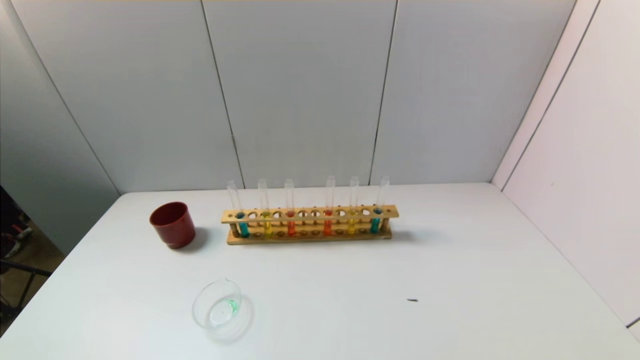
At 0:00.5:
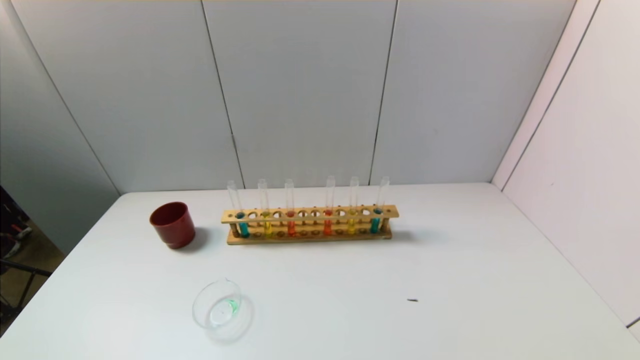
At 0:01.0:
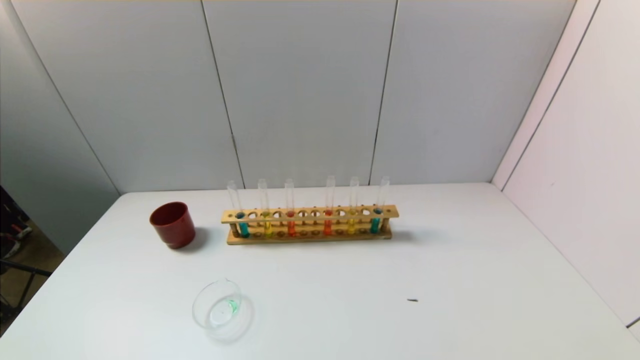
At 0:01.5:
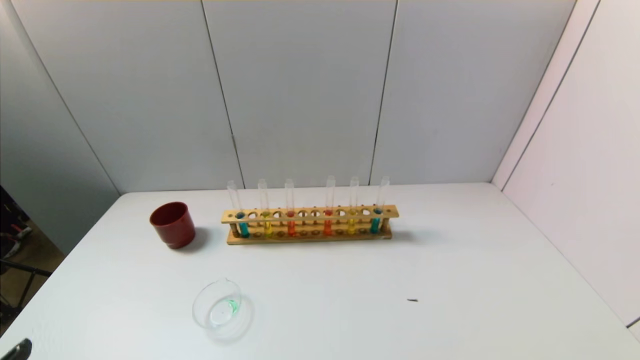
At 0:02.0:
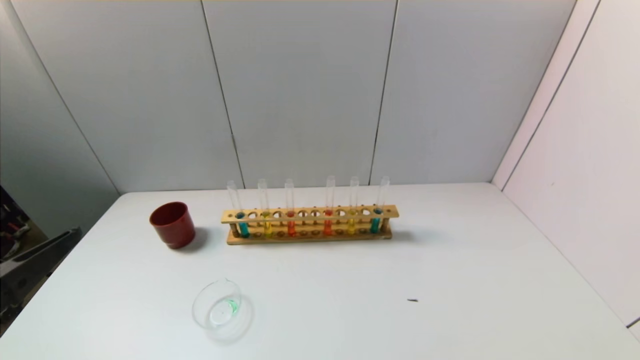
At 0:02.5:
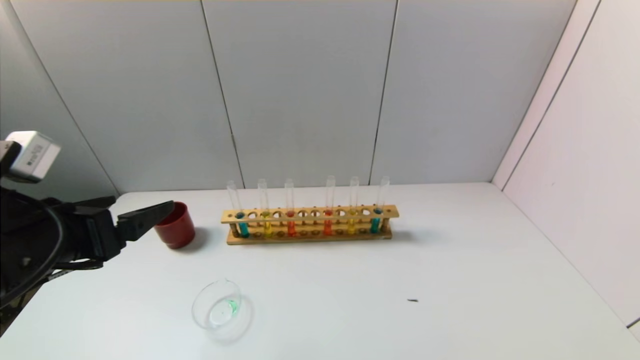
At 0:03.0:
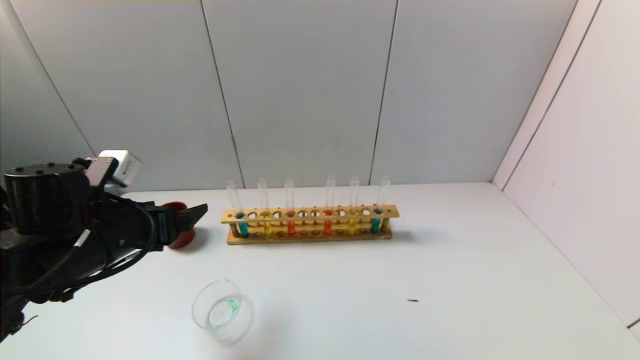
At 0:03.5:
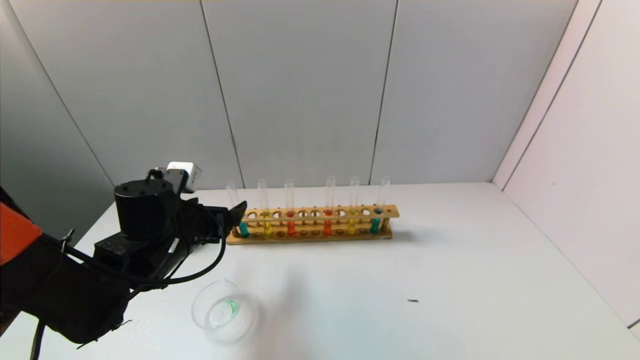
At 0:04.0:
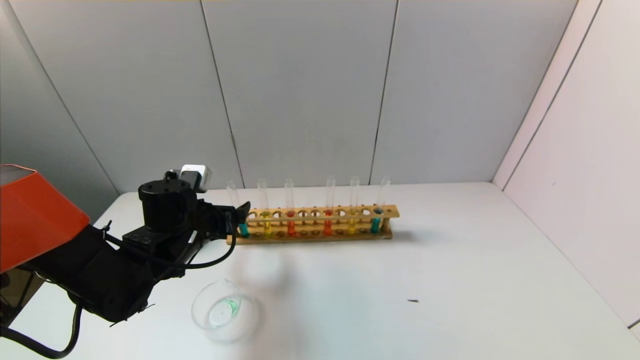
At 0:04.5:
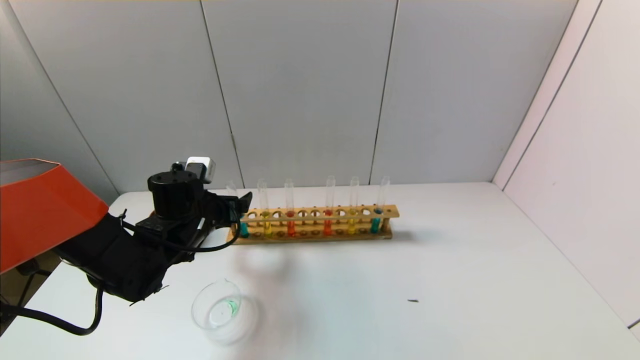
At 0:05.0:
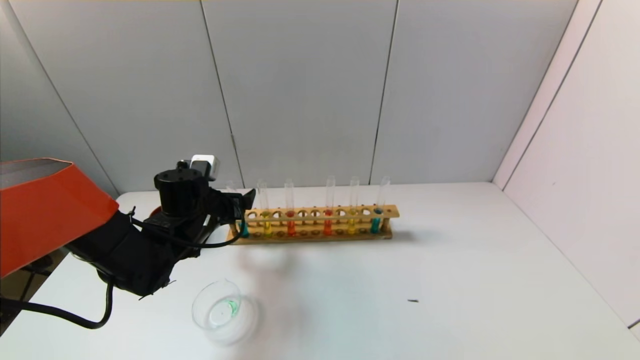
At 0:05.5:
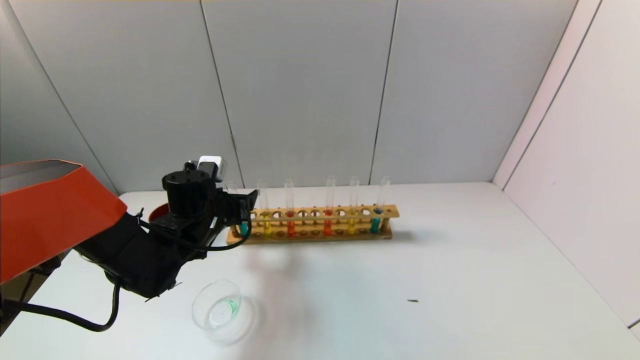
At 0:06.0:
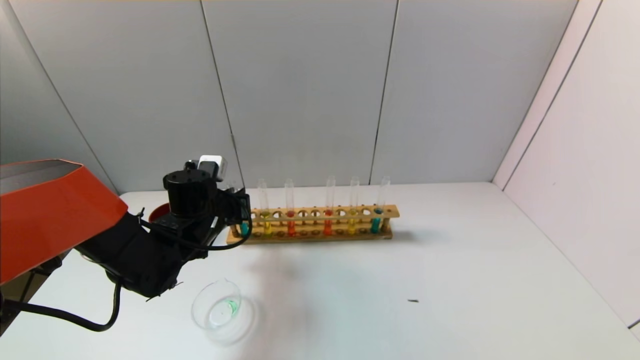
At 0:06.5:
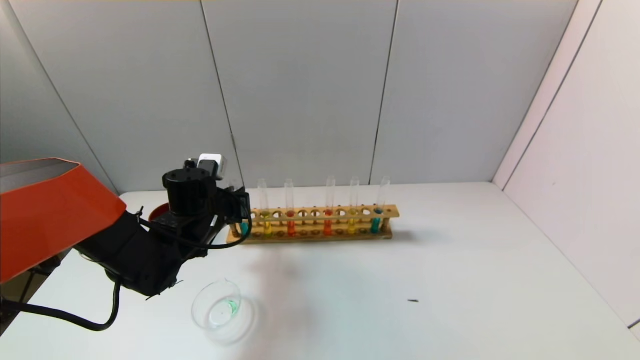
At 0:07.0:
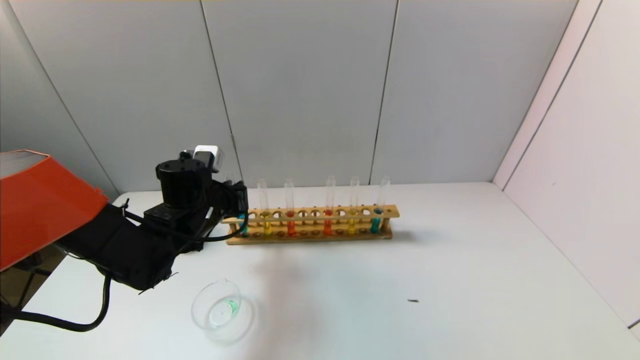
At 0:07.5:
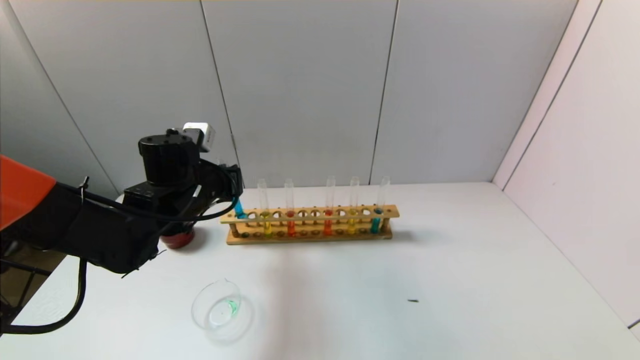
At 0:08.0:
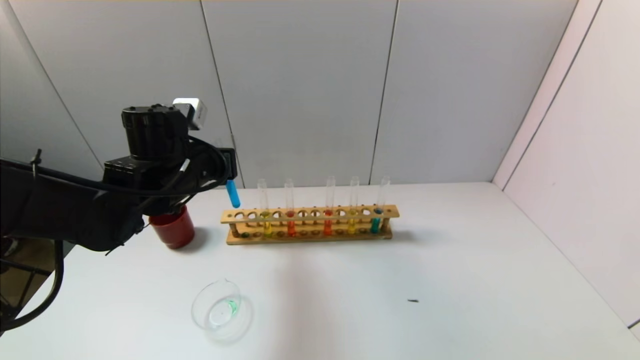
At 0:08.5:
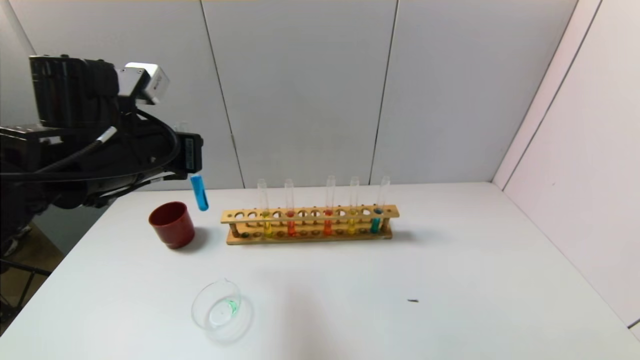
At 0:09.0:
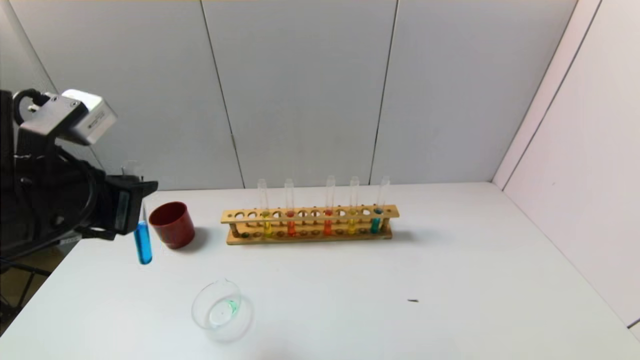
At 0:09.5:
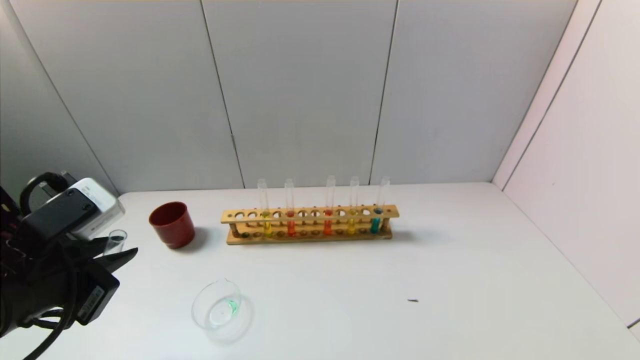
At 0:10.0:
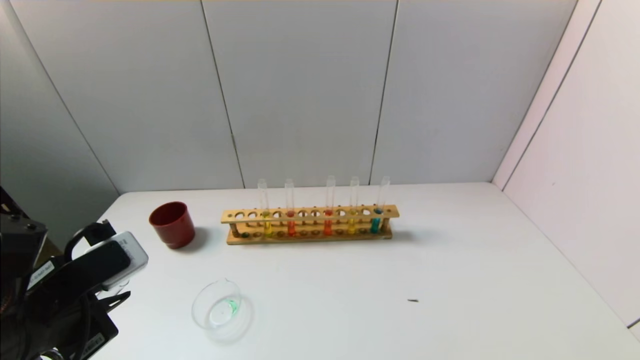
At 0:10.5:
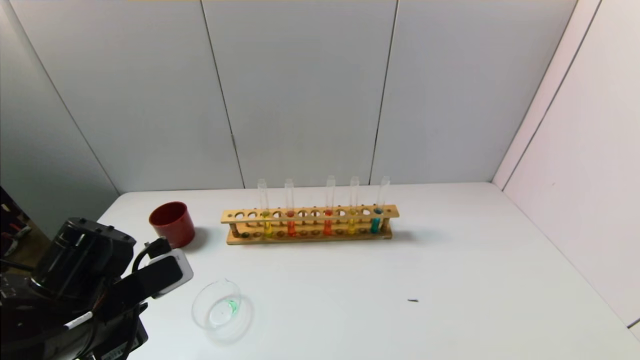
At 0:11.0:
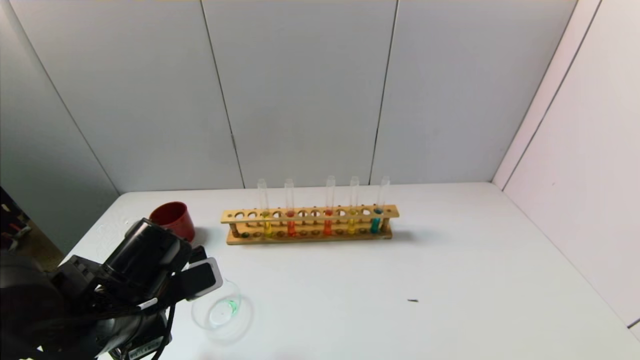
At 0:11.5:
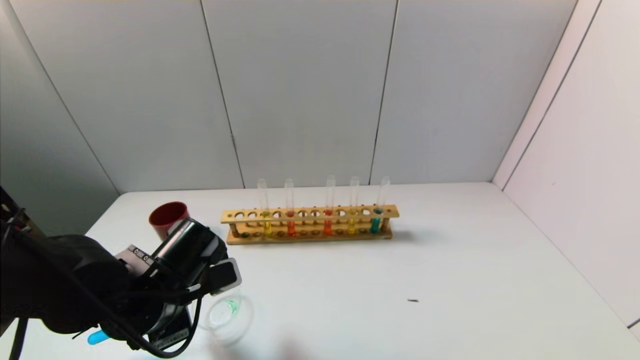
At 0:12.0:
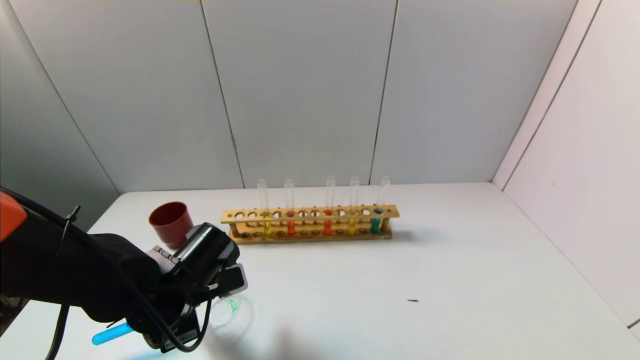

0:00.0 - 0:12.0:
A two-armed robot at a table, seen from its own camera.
Task of the whole recording: pick up the test tube with yellow pigment and the test tube with blue pigment by grippers and pour them into the beaker.
Step, 0:00.0 - 0:06.0: Grasp the blue reagent with the left gripper.
0:02.0 - 0:04.0: The left gripper heads forward and downward, covering roughly 25 cm.
0:04.0 - 0:06.0: The left gripper closes its fingers.
0:06.0 - 0:08.0: The left gripper travels upward by about 10 cm.
0:08.0 - 0:10.0: The left gripper travels backward by about 20 cm.
0:10.0 - 0:12.0: The left gripper is displaced forward, downward and to the right by roughly 15 cm.

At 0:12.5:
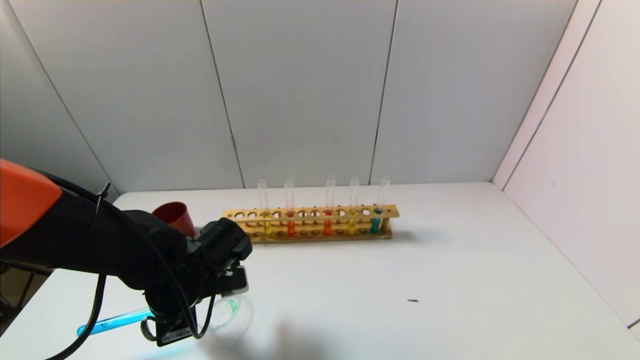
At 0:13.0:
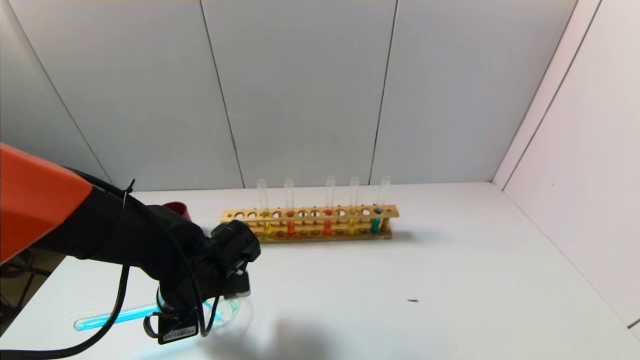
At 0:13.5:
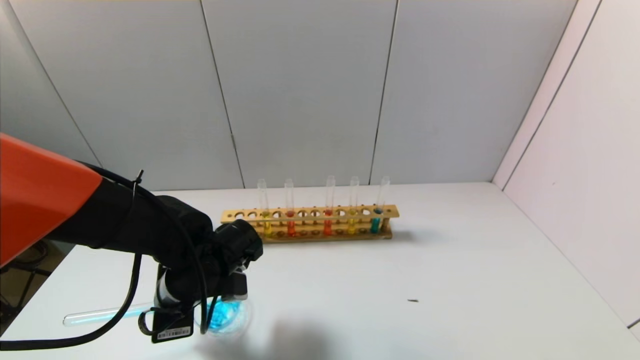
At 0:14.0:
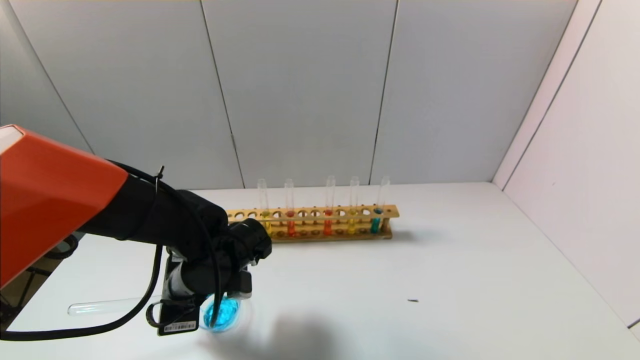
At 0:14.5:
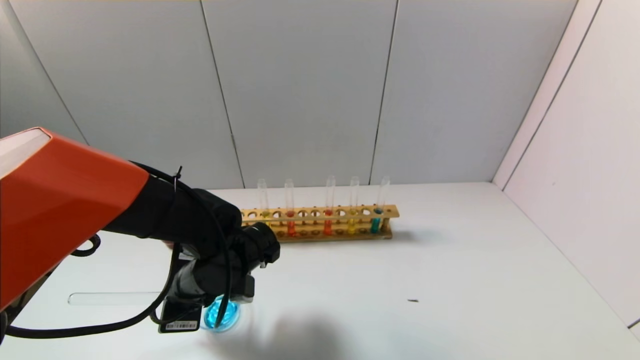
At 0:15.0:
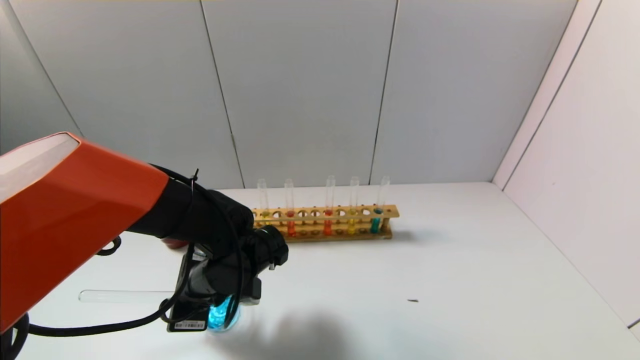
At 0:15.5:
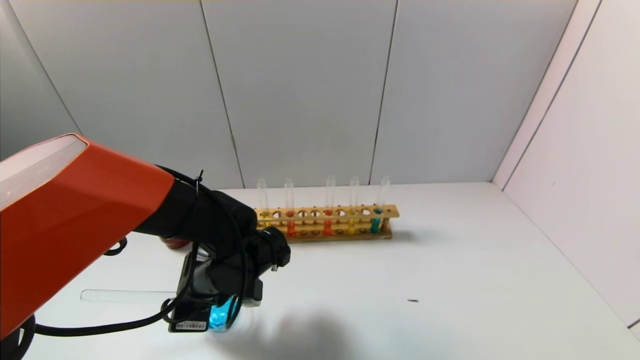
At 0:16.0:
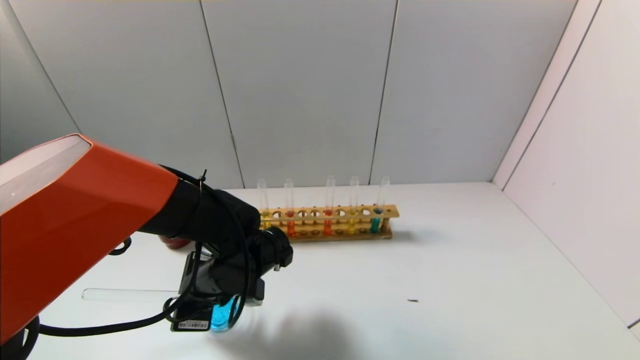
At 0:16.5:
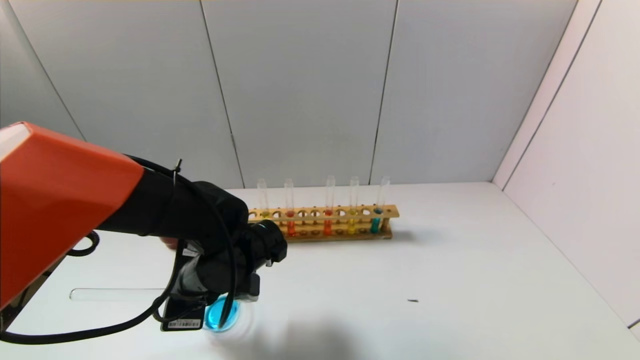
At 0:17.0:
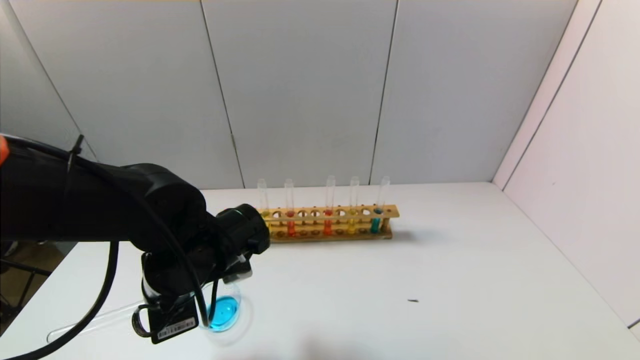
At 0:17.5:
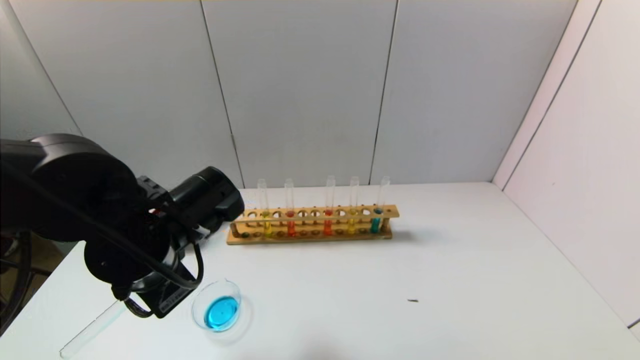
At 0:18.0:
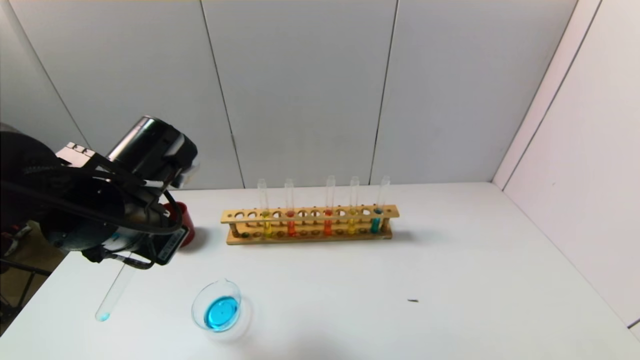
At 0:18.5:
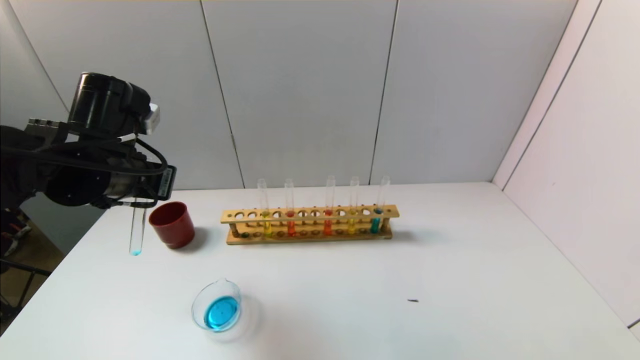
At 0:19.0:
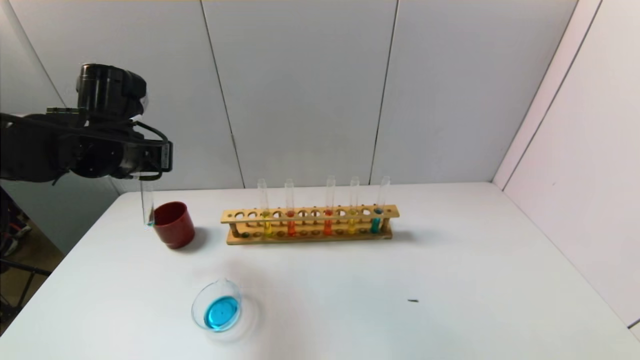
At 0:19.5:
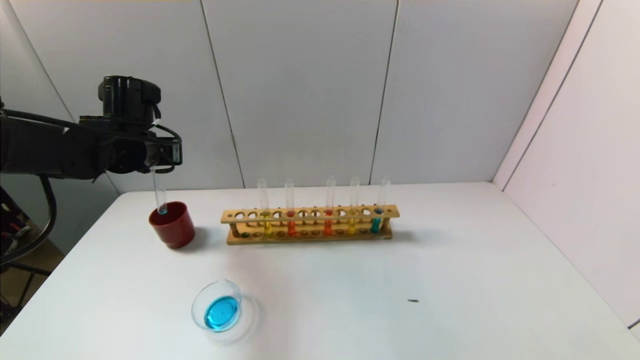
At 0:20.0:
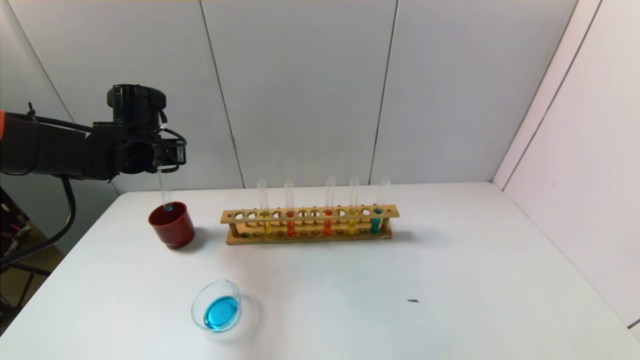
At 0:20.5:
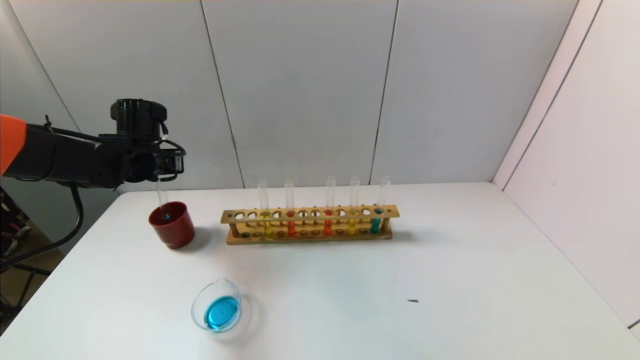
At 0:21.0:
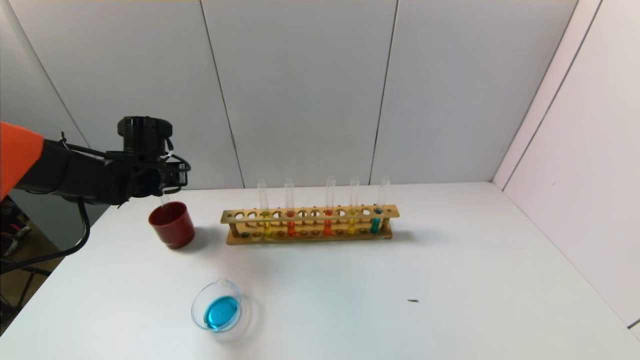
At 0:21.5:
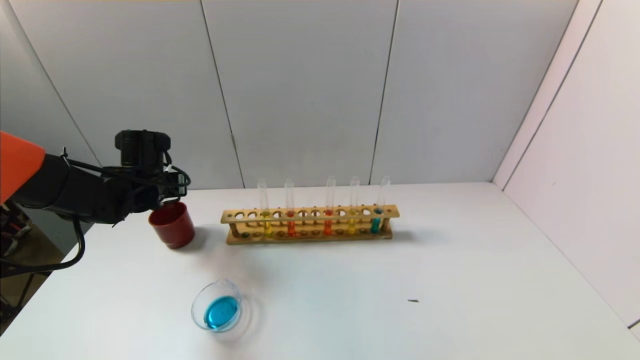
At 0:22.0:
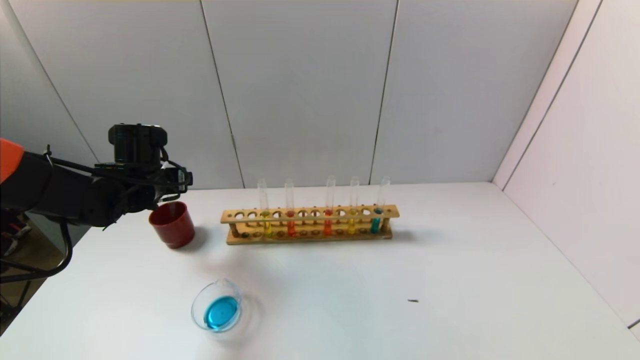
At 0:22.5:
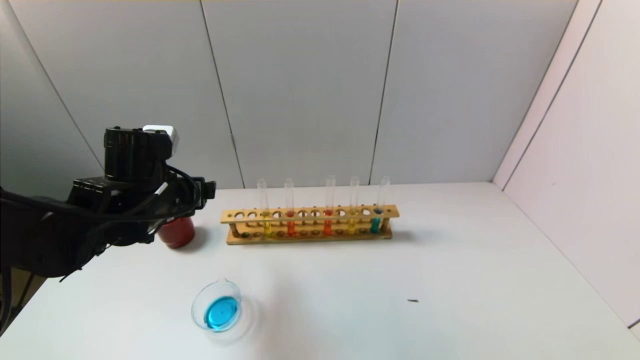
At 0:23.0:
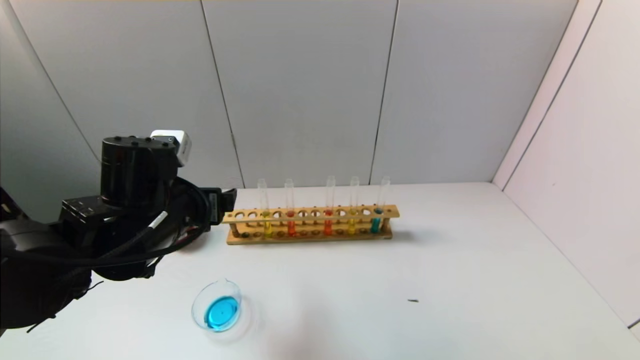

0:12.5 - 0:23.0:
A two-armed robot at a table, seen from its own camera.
Task of the whole recording: pick up the test tube with yellow pigment and the test tube with blue pigment by grippers and pour them into the beaker.
Step, 0:12.5 - 0:15.5: Pour the blue reagent into the graduated cylinder with the left gripper.
Step, 0:16.0 - 0:21.5: Place the test tube into the brown cup with the left gripper.
0:14.5 - 0:16.5: The grippers stay close to where they were, moving slightly.
0:16.5 - 0:19.0: The left gripper goes some 20 cm upward, to the left and forward.
0:19.0 - 0:21.0: The left gripper shifts roughly 10 cm downward and forward.
0:21.0 - 0:23.0: The left gripper travels backward and to the right by about 20 cm, and opens up.
